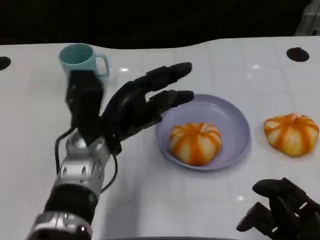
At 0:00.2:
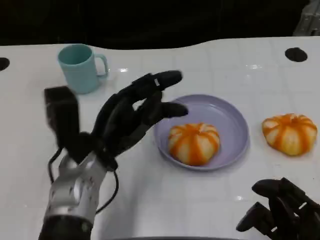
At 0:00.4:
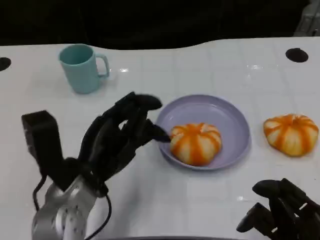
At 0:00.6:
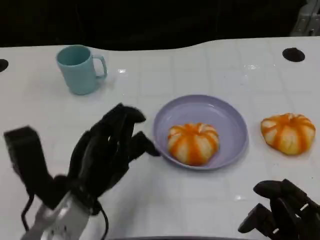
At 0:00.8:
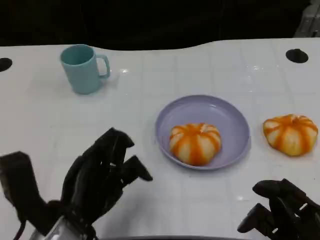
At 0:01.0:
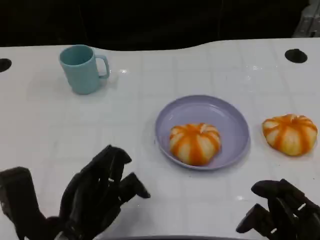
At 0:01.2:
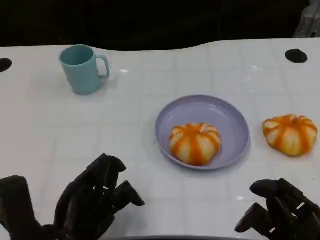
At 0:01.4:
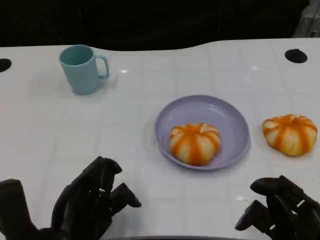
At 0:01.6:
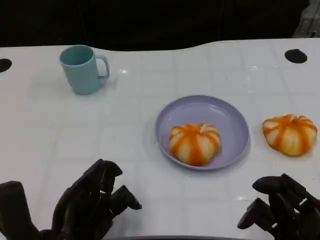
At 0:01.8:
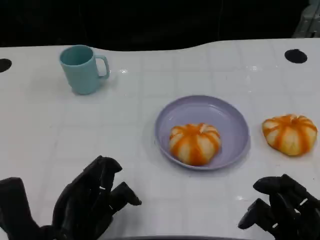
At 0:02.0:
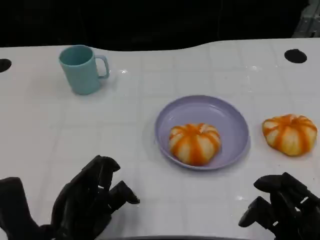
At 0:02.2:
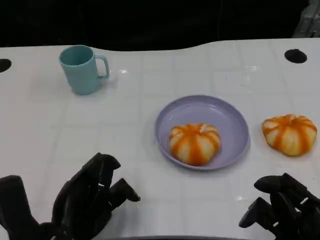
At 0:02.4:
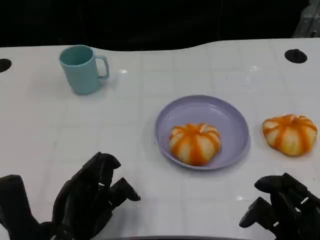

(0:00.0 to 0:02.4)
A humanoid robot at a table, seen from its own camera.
Task of the whole recording: Grasp the bread from the table and place it into the plate.
0:00.0 - 0:01.2: The left hand shifts about 15 cm backward.
0:01.2 - 0:02.4: Neither hand changes place.

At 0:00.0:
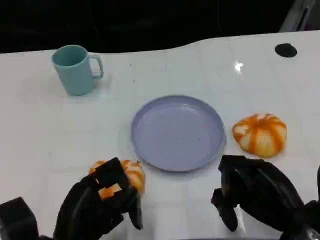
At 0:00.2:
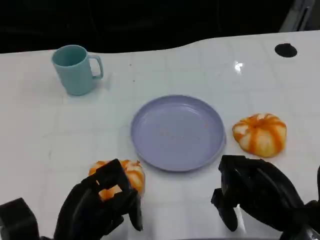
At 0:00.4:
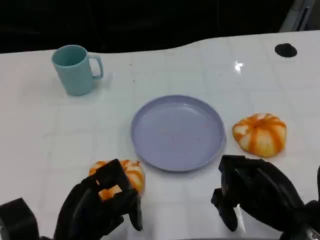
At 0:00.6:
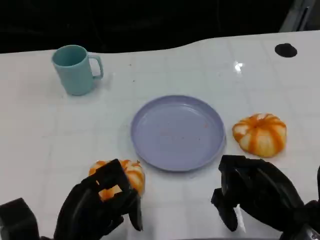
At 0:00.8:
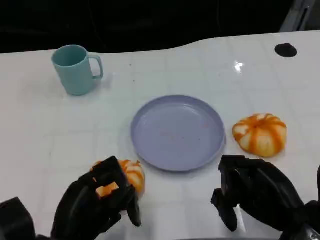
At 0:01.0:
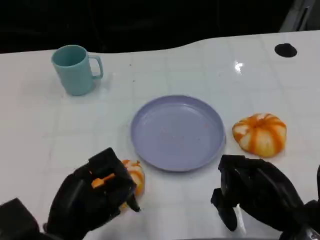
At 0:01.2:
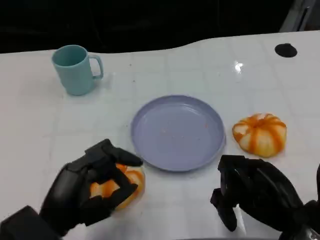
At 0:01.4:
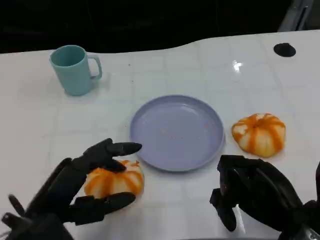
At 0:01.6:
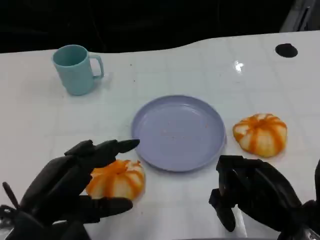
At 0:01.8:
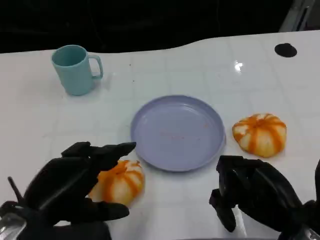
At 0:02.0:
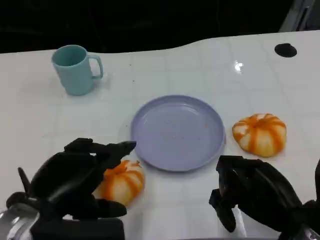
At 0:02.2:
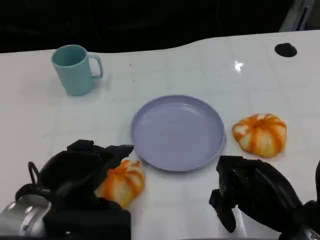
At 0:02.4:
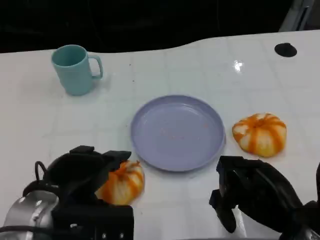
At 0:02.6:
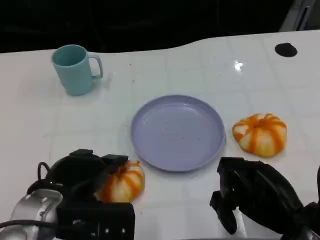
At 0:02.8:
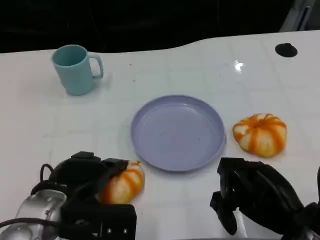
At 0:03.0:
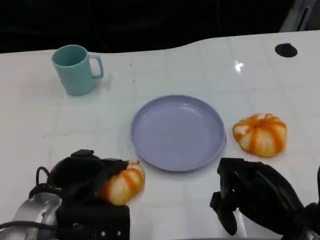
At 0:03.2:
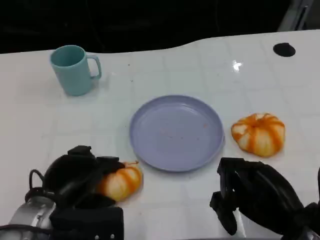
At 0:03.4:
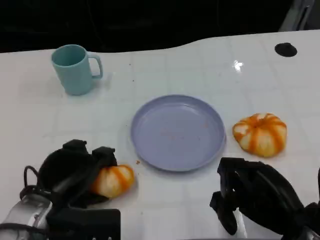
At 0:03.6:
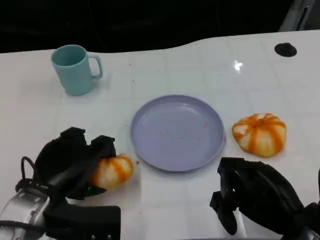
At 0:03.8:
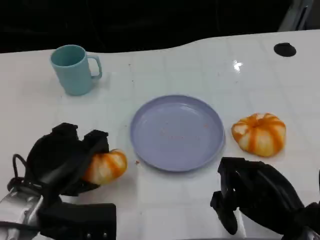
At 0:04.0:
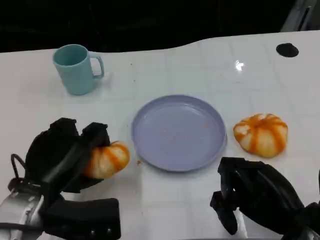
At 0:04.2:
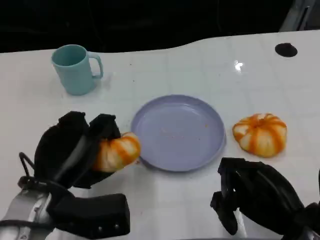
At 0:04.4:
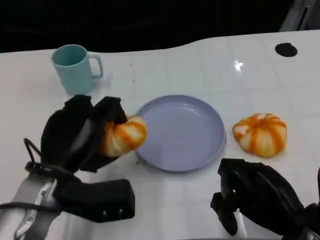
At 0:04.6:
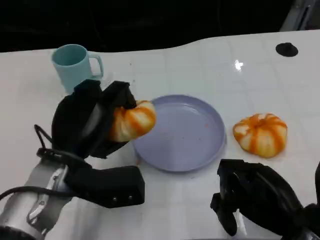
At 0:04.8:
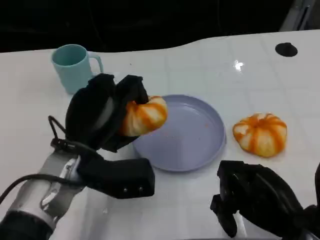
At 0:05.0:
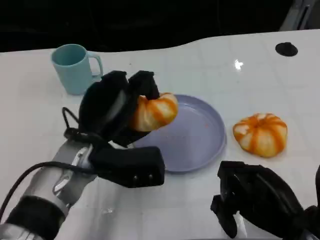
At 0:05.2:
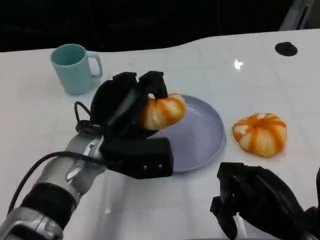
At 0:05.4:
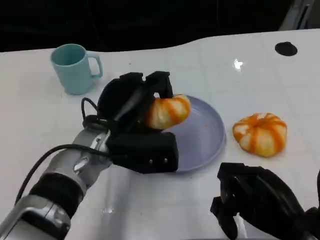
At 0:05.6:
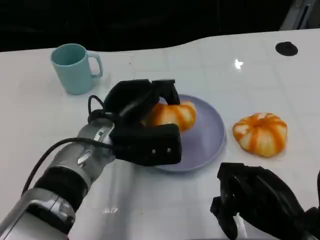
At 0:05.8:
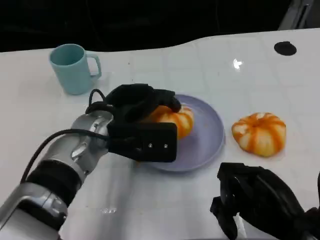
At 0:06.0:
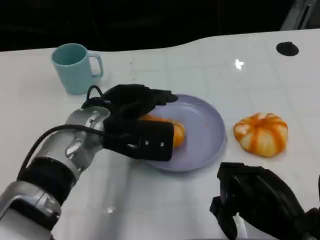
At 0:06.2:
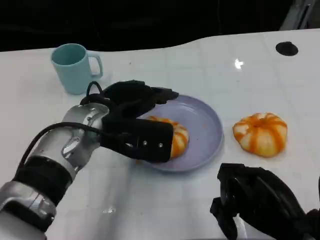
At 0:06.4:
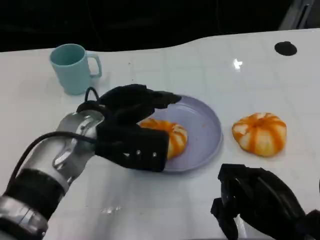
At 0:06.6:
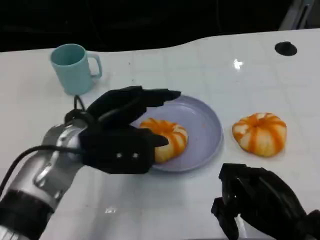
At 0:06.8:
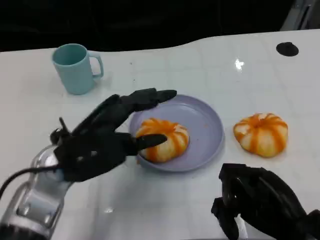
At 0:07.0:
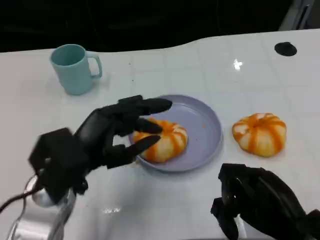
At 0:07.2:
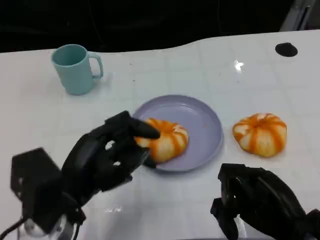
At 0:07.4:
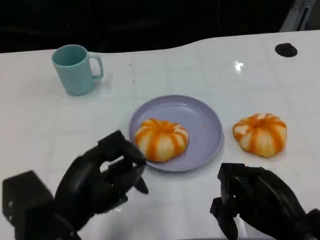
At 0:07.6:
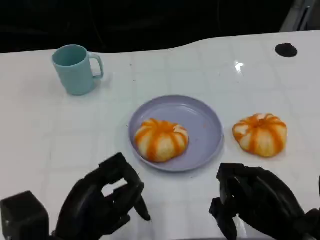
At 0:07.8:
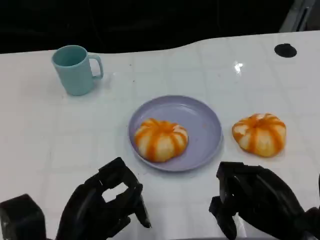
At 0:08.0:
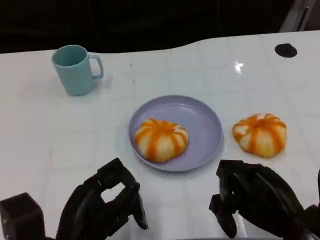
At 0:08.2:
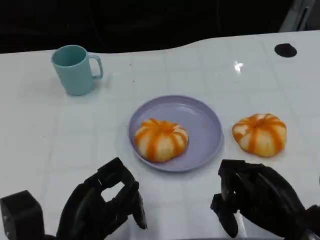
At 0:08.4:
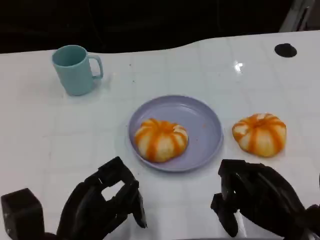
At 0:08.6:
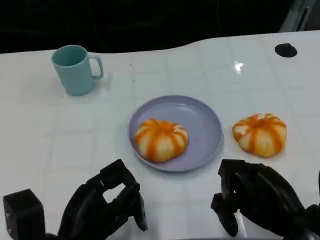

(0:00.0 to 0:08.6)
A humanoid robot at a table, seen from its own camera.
Task of the whole recording: Grasp the bread from the table and place it into the plate.
0:00.0 - 0:01.4: The left hand travels upward by roughly 5 cm.
0:01.4 - 0:02.8: The left hand travels forward by some 5 cm.
0:04.4 - 0:05.8: The left hand goes some 10 cm forward and to the right.
0:05.8 - 0:07.2: The left hand goes some 15 cm backward and to the left.
0:07.2 - 0:08.6: The left hand ends up roughly 5 cm from where it was.

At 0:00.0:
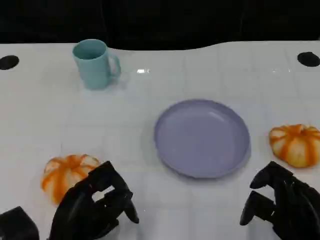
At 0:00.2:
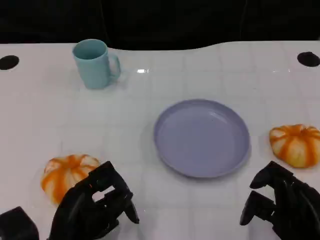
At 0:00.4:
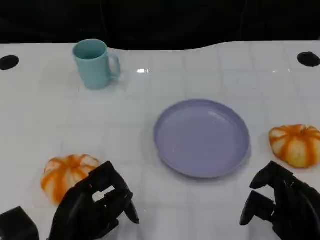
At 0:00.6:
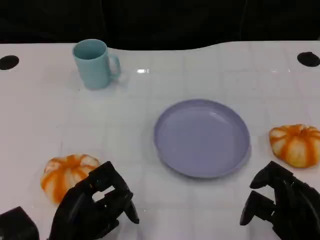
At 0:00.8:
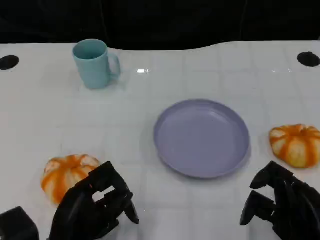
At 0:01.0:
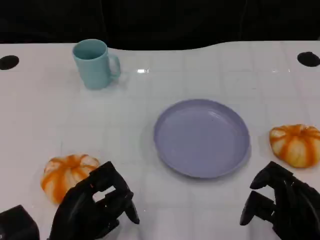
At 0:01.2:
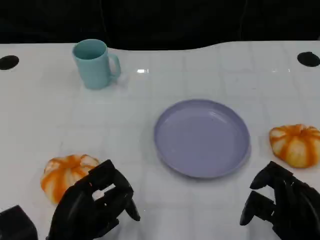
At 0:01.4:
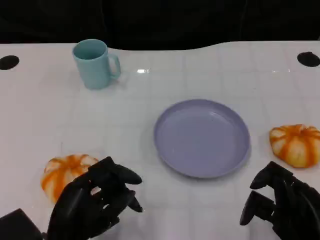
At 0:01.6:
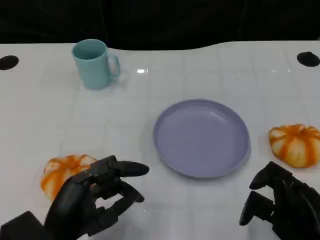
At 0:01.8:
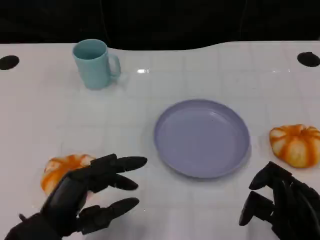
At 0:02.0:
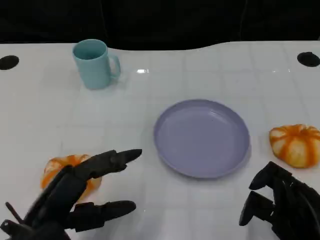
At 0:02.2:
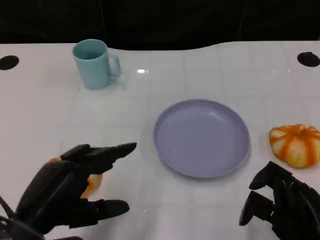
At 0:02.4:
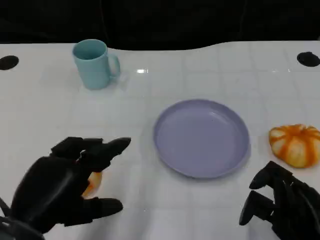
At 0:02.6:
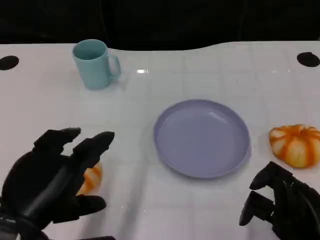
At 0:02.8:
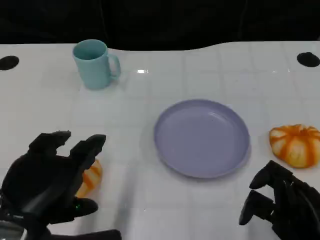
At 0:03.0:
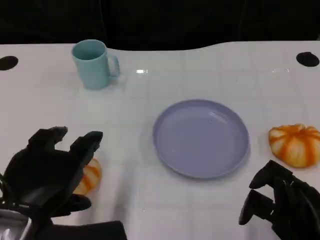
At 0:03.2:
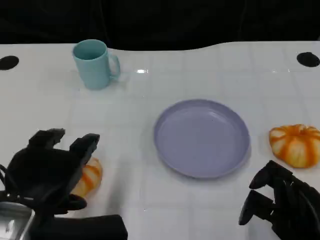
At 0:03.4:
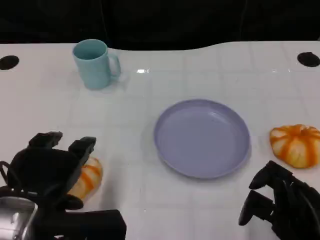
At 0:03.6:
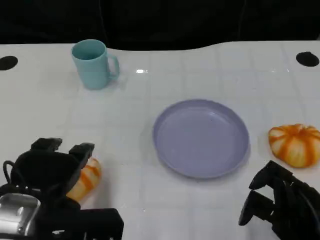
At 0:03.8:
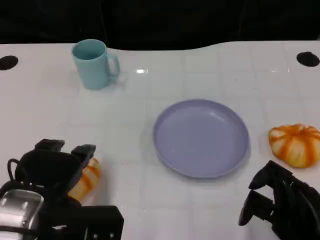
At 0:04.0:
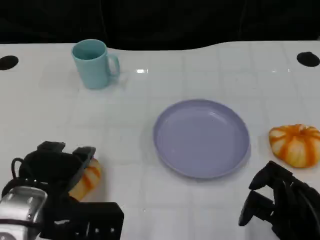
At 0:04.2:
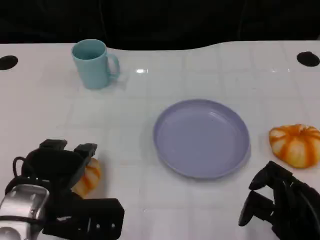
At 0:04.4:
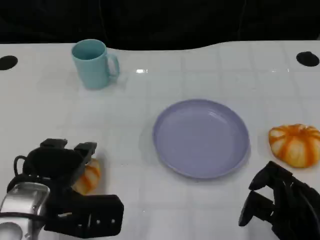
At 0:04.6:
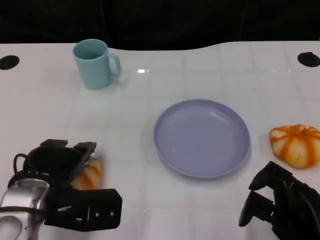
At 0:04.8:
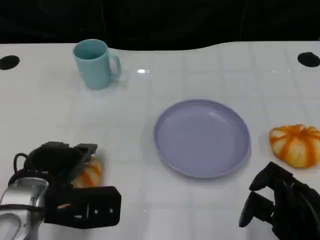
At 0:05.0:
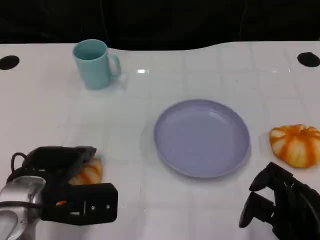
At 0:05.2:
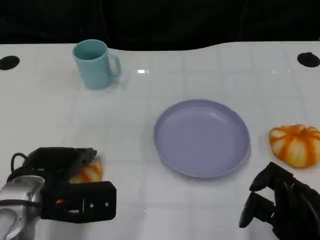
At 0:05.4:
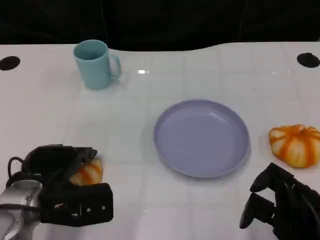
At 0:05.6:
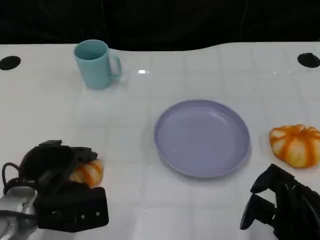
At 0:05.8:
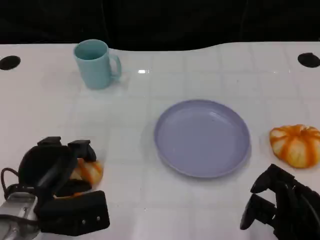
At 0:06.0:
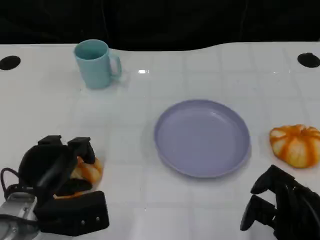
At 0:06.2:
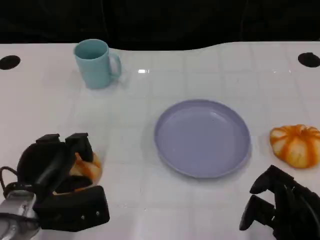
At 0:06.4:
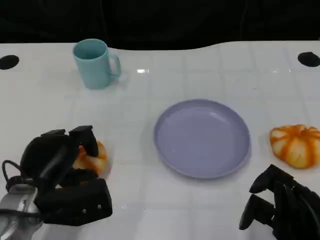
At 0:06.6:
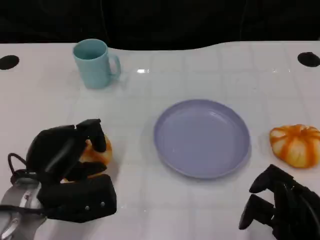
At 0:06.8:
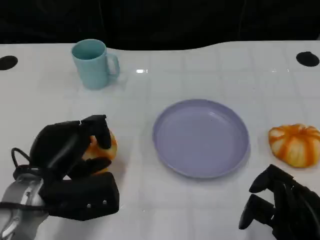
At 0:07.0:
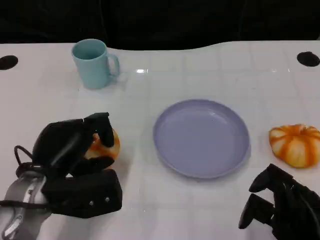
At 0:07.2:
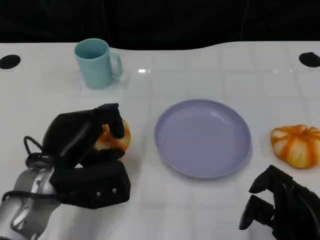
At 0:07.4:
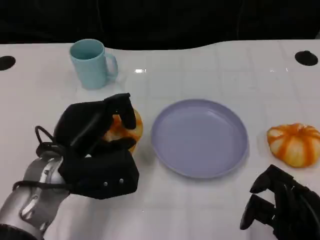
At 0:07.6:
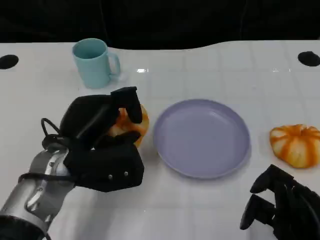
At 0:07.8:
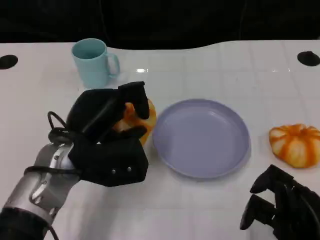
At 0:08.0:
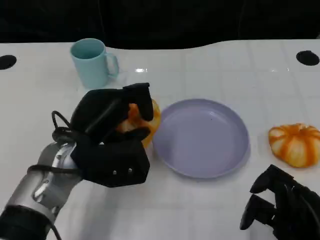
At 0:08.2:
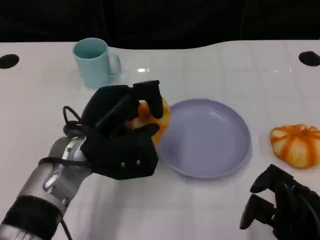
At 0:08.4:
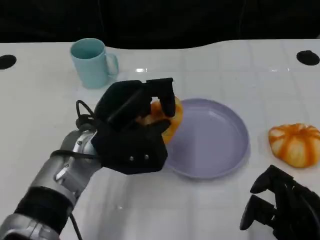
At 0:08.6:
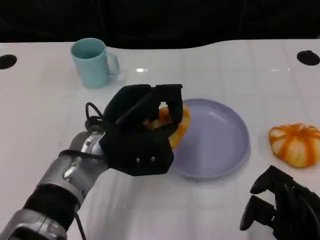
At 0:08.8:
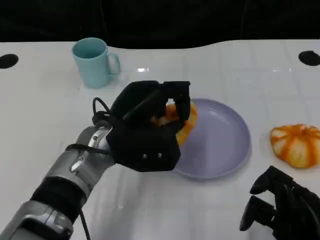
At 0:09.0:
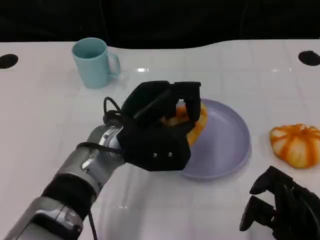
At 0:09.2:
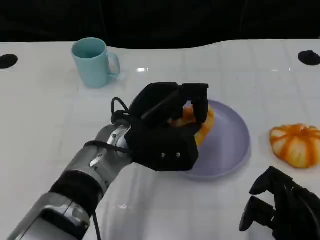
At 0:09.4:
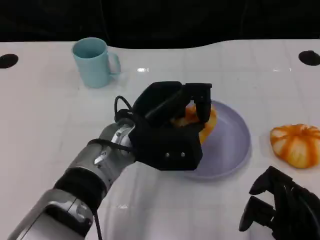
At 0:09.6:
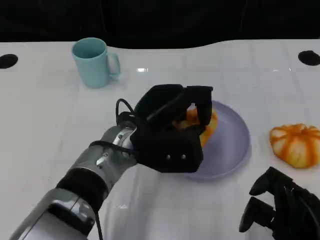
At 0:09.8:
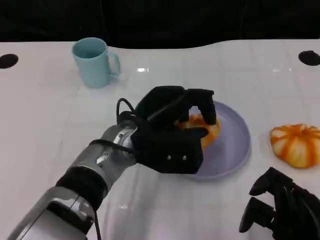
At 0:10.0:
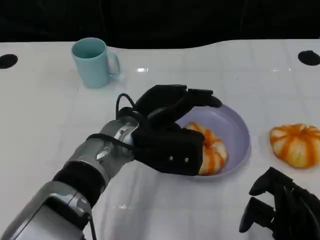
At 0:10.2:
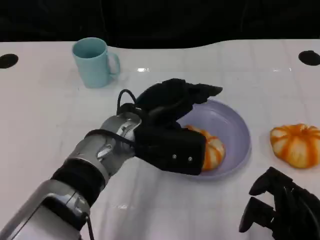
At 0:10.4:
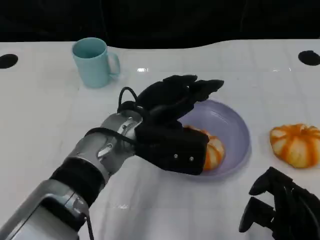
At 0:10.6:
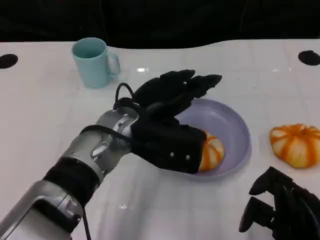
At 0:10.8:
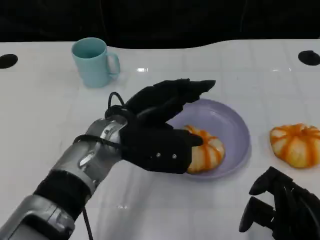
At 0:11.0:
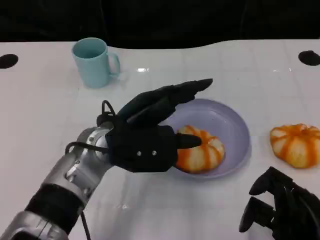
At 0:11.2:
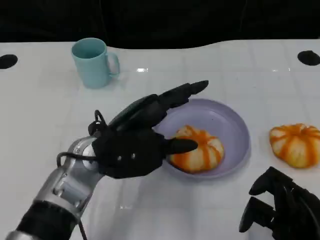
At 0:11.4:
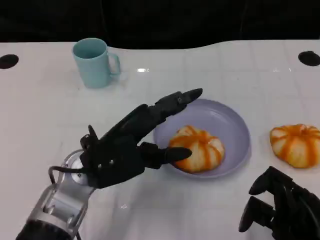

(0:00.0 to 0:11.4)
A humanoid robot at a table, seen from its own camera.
Task of the whole recording: Grasp the bread from the table and place it into the plate.
0:00.0 - 0:01.4: There are only small adjustments of the hands.
0:01.4 - 0:02.8: The left hand heads upward, covering approximately 10 cm.
0:02.8 - 0:04.2: The left hand travels forward and downward by roughly 10 cm.
0:04.2 - 0:05.6: The left hand ends up approximately 5 cm from where it was.
0:05.6 - 0:07.2: The left hand shifts by approximately 5 cm.
0:07.2 - 0:08.6: The left hand heads to the right, covering approximately 5 cm.
0:08.6 - 0:10.0: There are only small adjustments of the hands.
0:10.0 - 0:11.4: The left hand heads to the left, covering approximately 5 cm.
